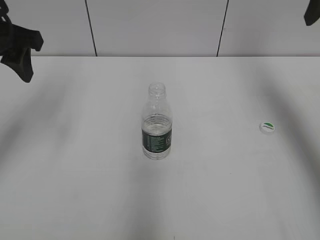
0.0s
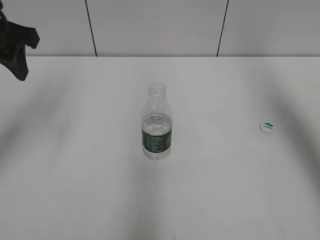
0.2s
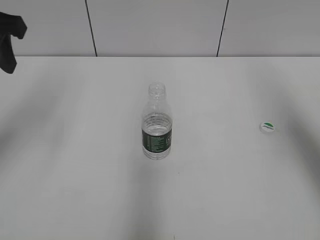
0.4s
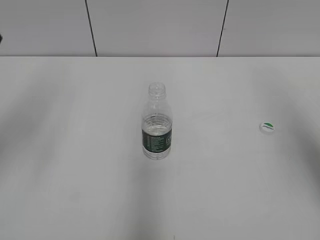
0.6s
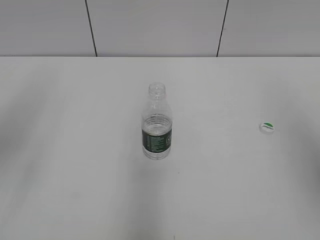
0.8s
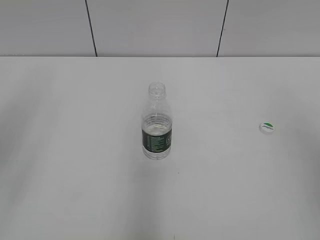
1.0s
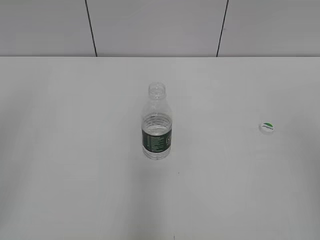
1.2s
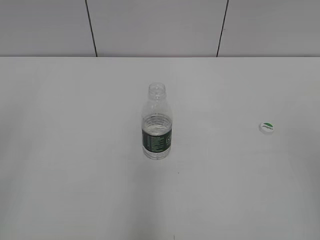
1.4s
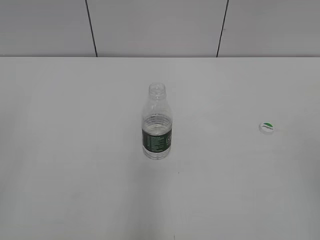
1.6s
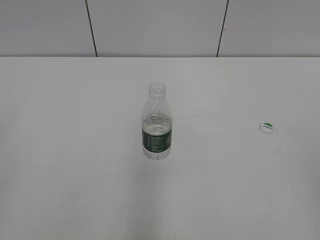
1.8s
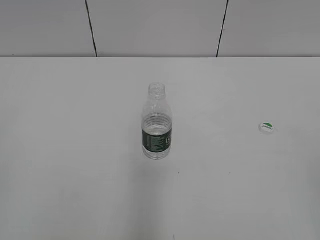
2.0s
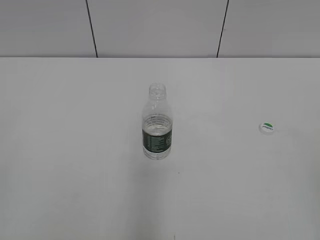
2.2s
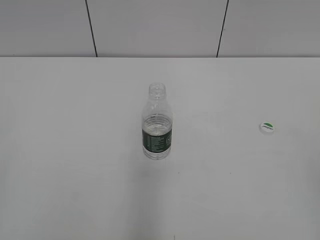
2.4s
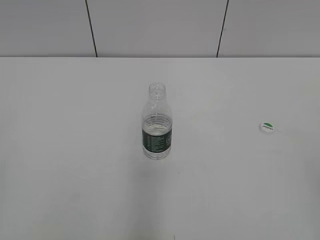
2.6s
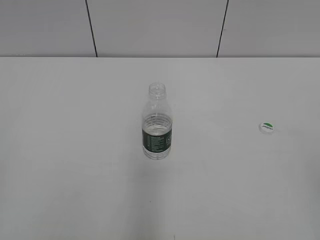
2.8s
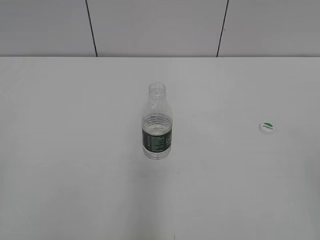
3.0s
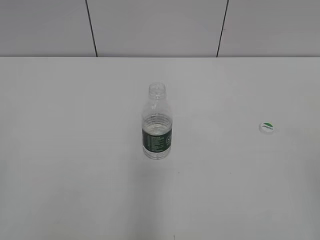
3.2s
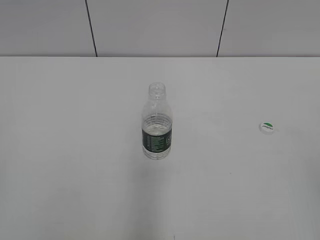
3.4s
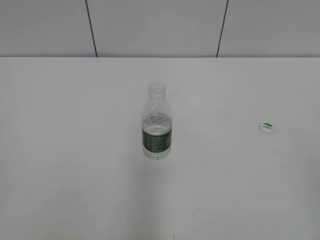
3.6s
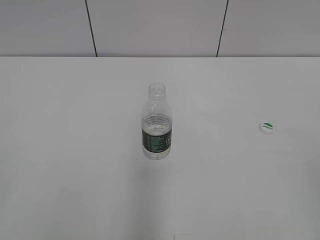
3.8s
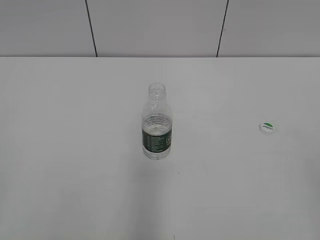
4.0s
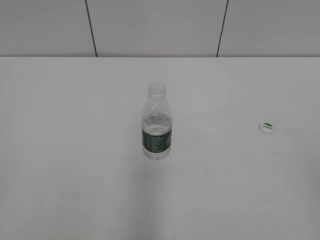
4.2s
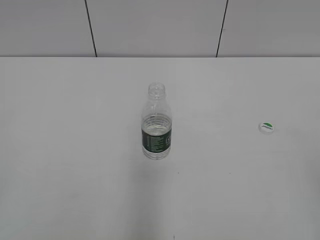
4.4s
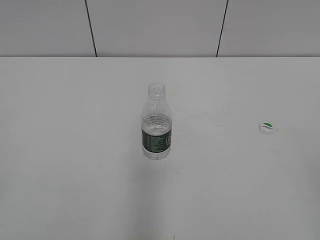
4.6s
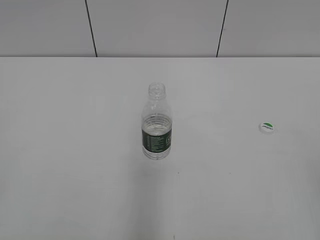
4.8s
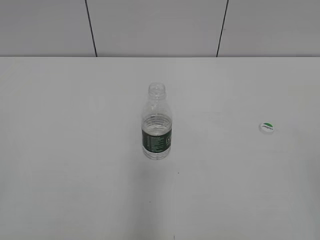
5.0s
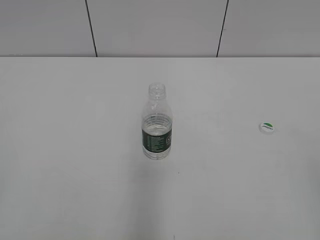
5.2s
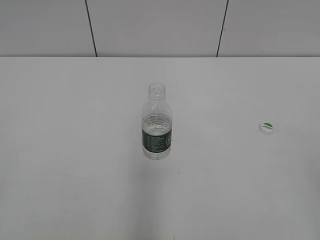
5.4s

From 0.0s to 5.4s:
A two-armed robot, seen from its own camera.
From 0.0s to 1.4s: Both grippers travel together backward, roughly 25 cm. The left gripper closes up.

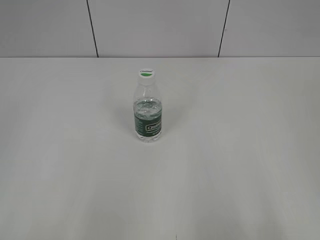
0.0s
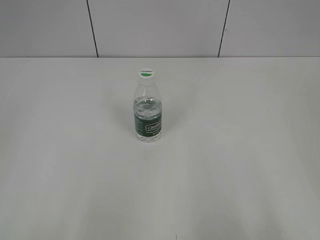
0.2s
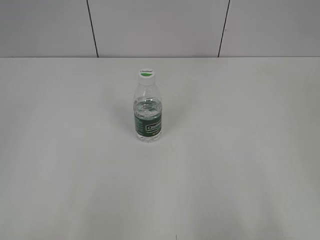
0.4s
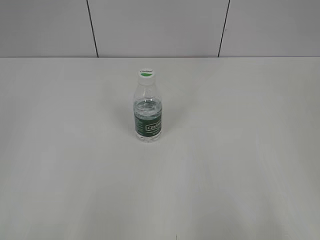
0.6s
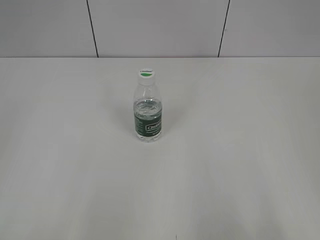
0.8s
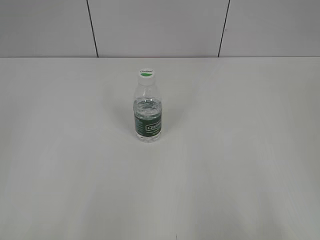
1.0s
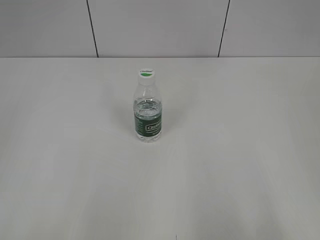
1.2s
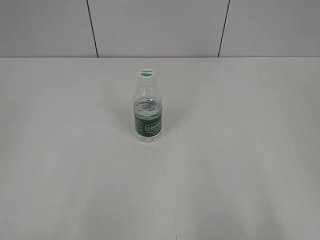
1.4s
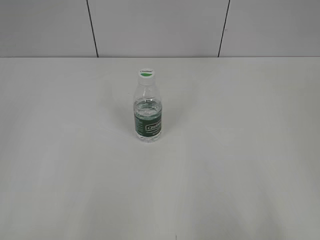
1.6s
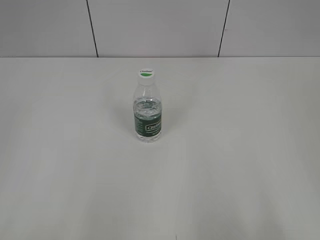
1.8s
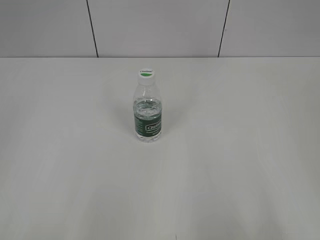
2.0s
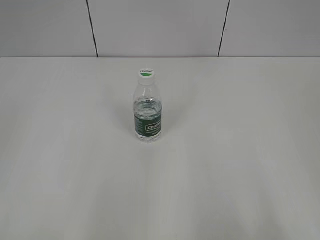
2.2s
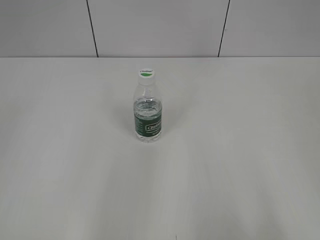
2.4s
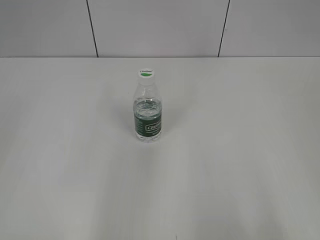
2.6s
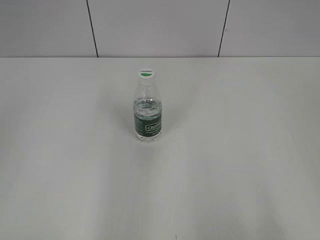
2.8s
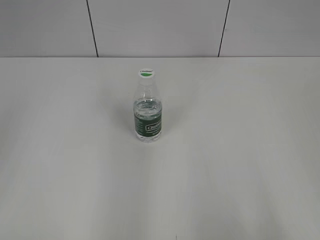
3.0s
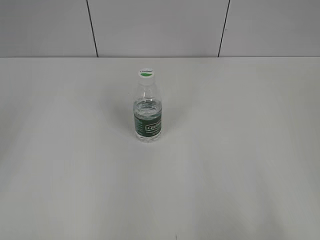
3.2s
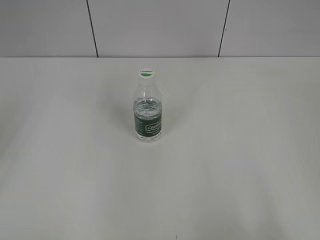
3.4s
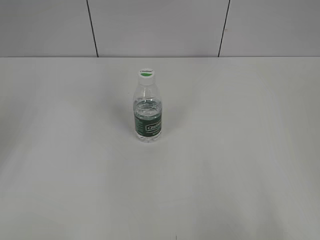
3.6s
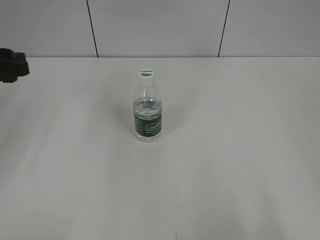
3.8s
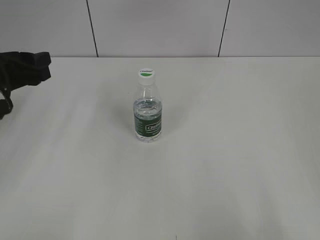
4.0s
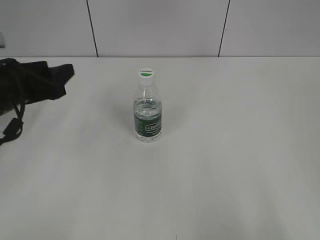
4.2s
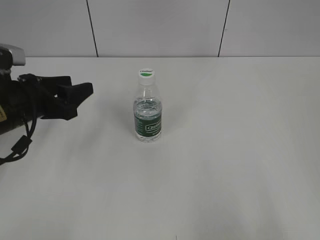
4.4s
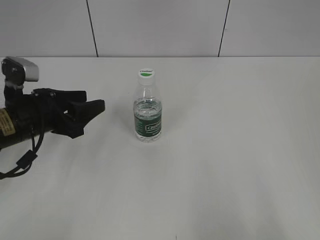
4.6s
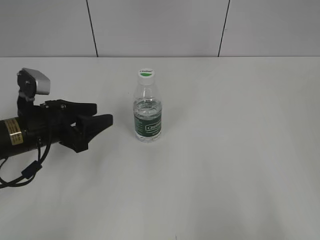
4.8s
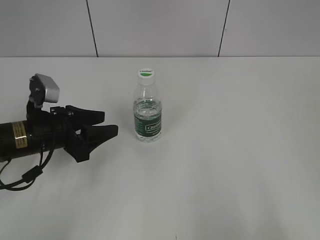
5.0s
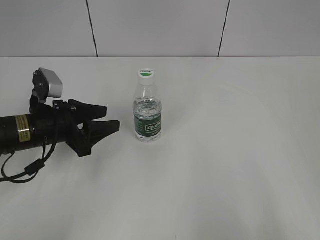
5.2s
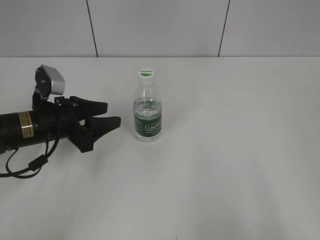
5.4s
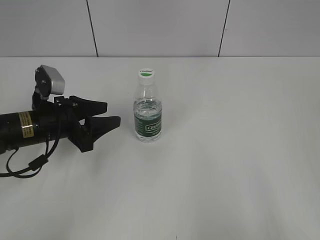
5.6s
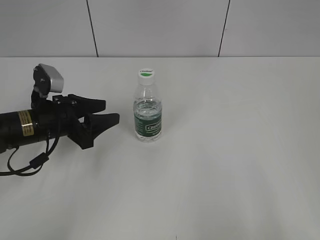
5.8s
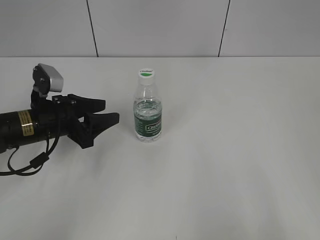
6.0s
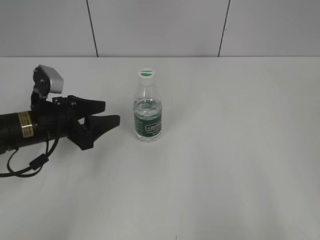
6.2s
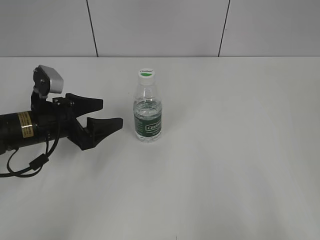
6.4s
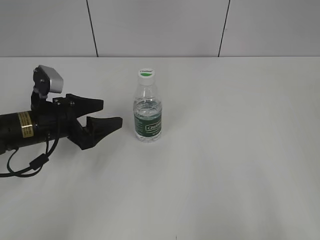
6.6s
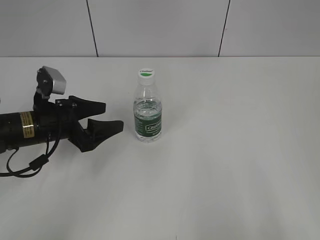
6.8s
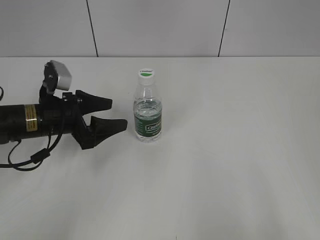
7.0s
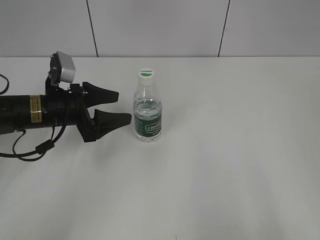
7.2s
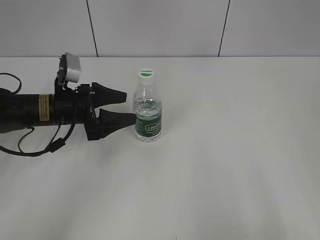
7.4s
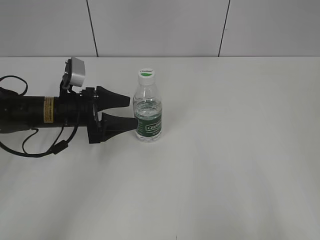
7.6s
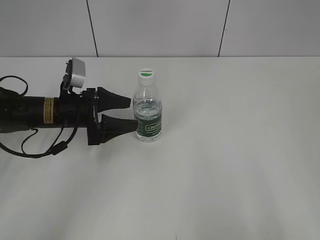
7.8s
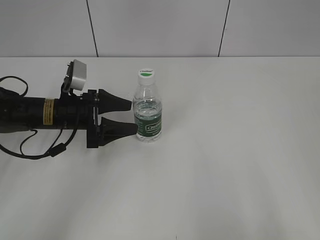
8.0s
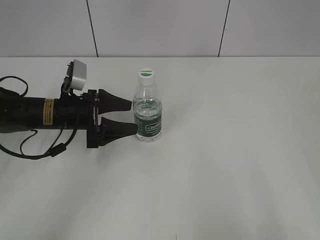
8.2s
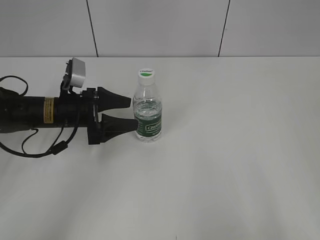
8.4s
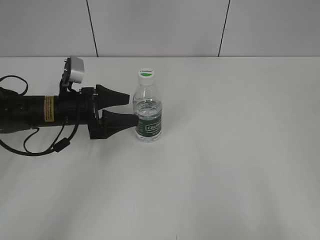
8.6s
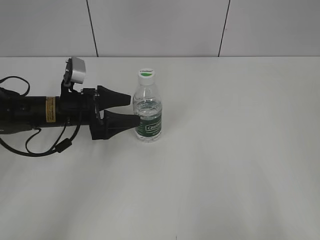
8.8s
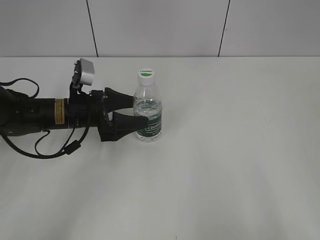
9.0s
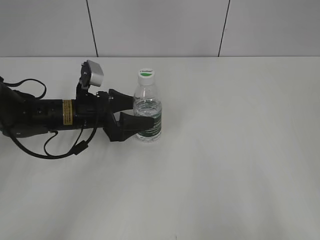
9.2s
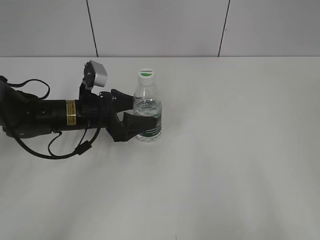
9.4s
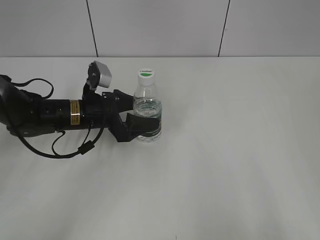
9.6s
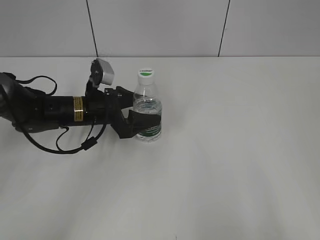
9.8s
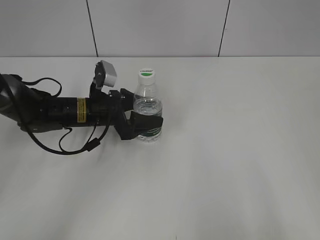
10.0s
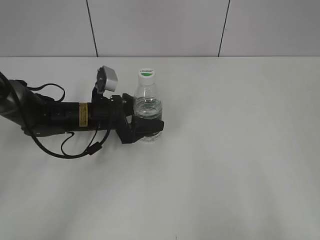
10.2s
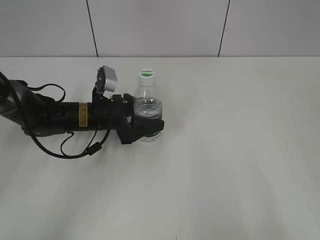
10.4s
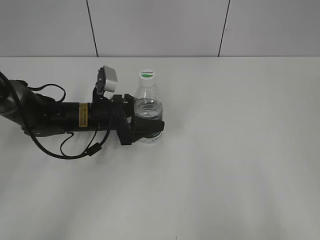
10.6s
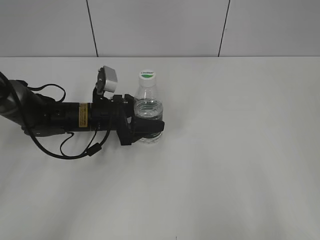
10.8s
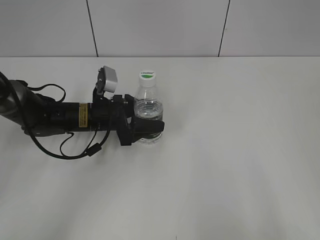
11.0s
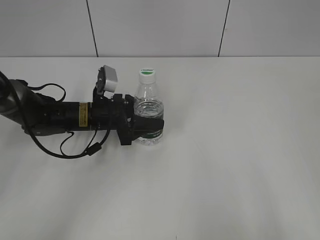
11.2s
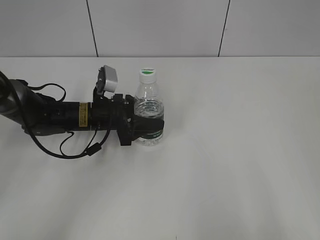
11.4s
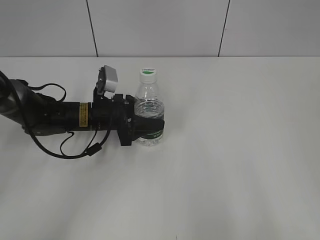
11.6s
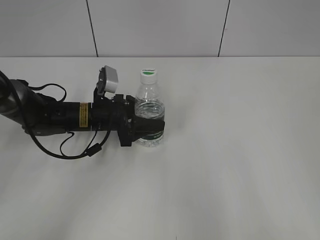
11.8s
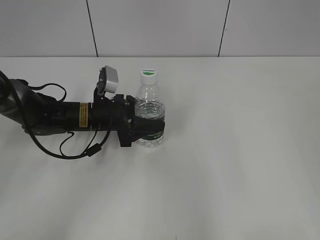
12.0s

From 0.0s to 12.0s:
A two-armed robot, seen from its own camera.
Step, from 0.0s to 10.4s: Grasp the bottle and move it to the center of the table with the left gripper.
From 3.0s to 4.4s: The left gripper moves downward, forward and to the right, some 25 cm.
From 4.4s to 6.0s: The left gripper shifts some 5 cm downward.
From 6.0s to 7.6s: The left gripper ends up some 5 cm from where it was, and opens.
From 7.6s to 10.4s: There are only small adjustments of the grippers.
From 10.4s to 12.0s: The right gripper is displaced forward by roughly 5 cm.

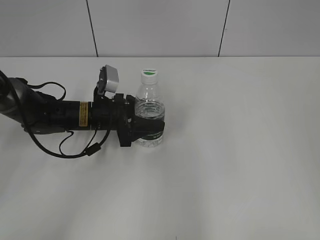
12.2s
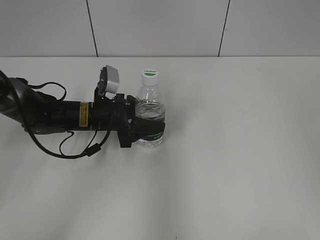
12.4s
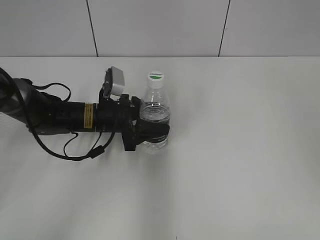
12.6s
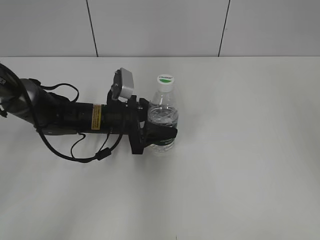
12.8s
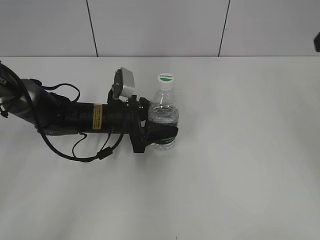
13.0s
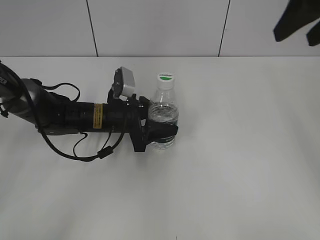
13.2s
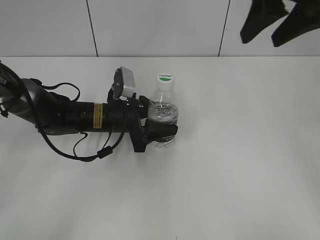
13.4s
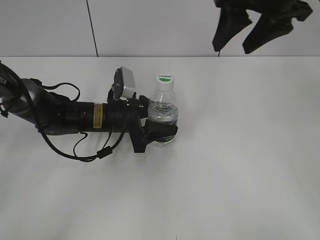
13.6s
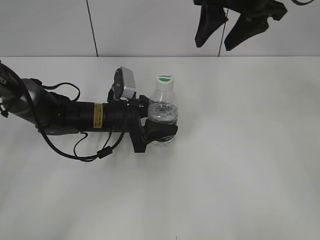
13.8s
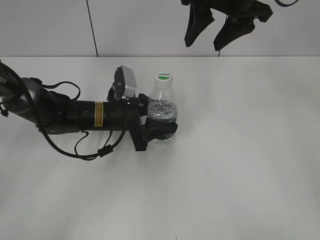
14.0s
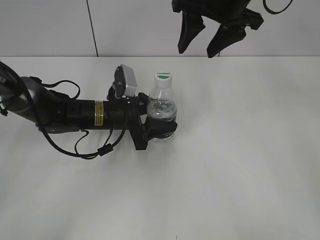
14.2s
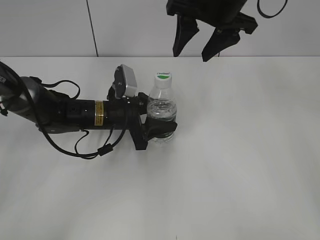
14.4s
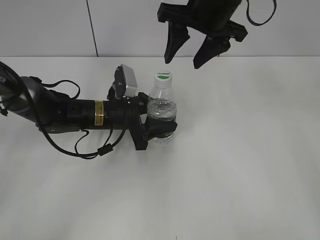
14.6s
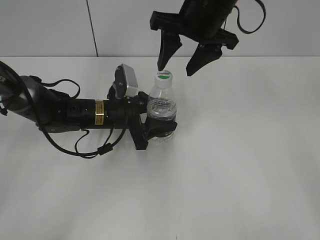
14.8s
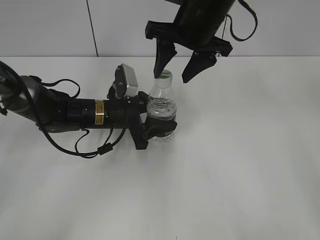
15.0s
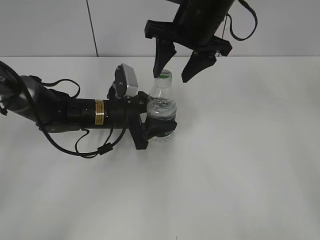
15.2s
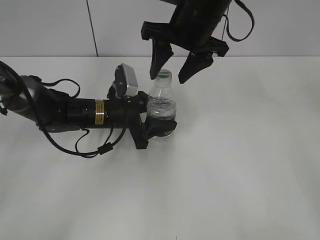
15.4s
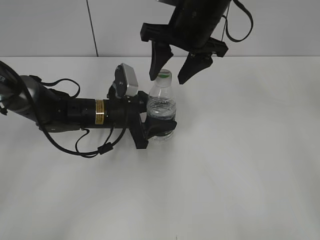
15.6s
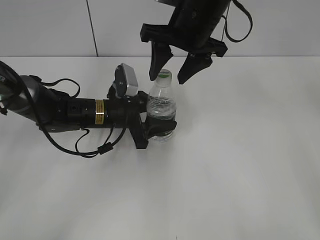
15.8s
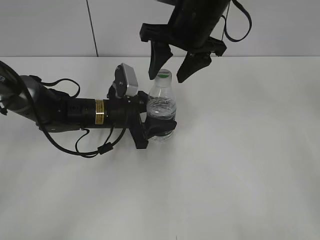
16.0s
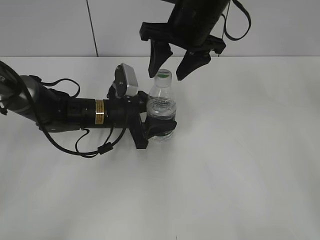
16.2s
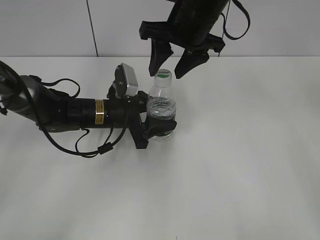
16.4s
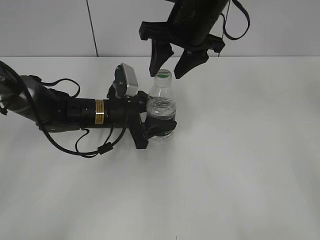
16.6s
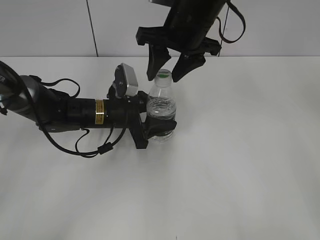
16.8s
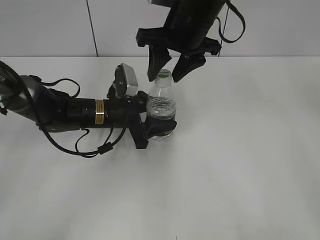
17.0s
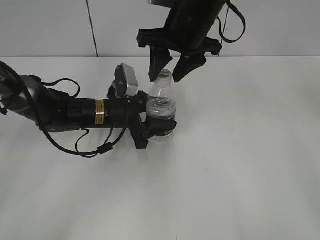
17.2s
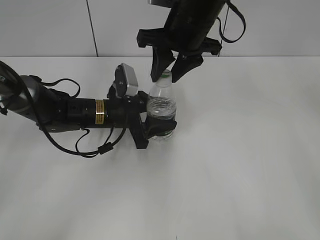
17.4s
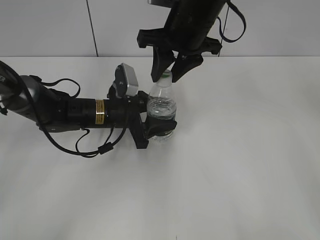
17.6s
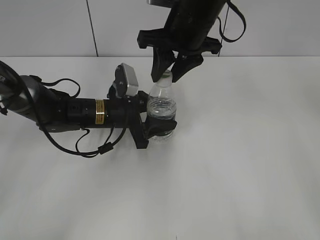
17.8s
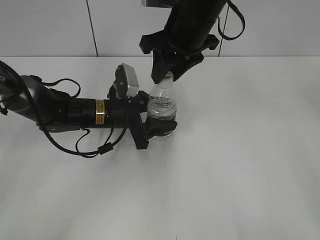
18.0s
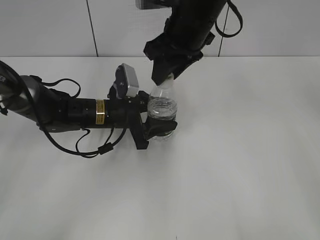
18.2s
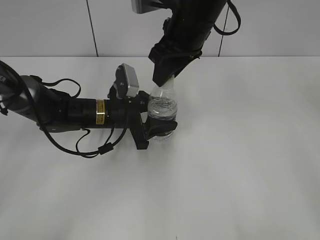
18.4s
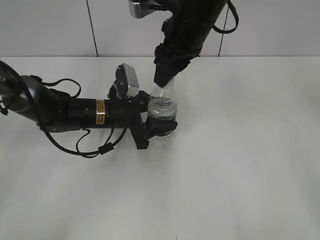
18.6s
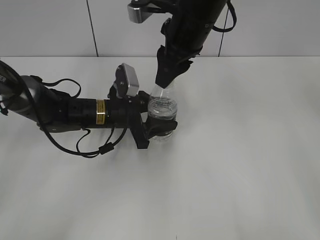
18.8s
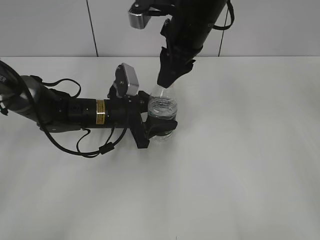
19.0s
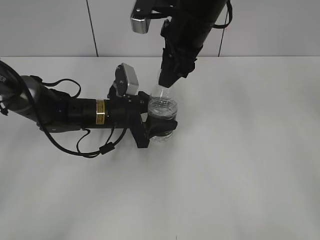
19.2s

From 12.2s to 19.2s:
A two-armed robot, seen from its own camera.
From 12.2s to 13.6s: The right gripper travels forward and to the left by some 30 cm.
From 13.6s to 15.0s: The right gripper is displaced to the left and downward by some 10 cm.
From 15.0s to 16.4s: The grippers move only a little.
From 16.4s to 17.8s: The right gripper closes its fingers.
